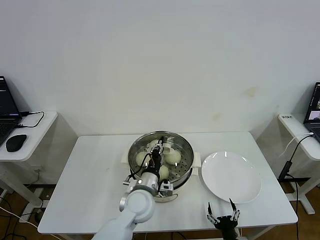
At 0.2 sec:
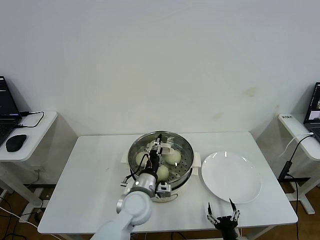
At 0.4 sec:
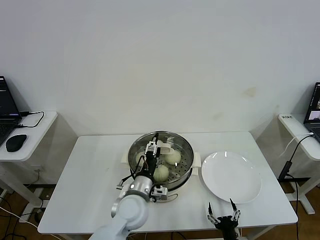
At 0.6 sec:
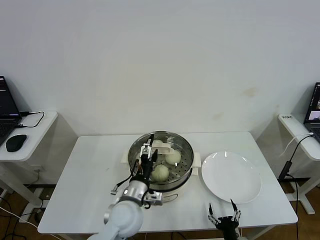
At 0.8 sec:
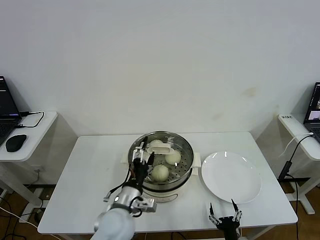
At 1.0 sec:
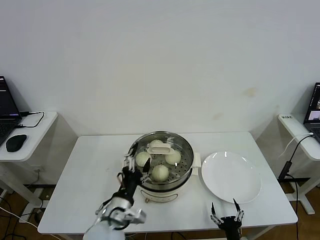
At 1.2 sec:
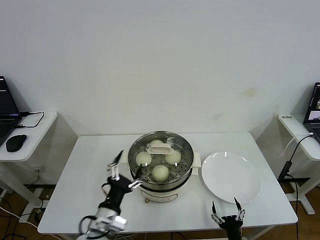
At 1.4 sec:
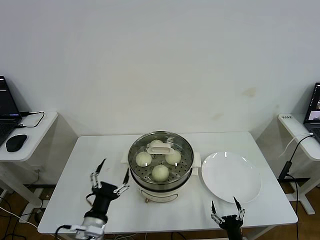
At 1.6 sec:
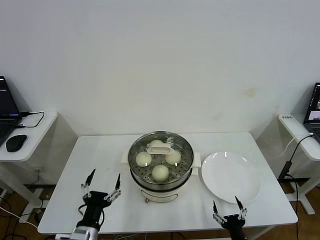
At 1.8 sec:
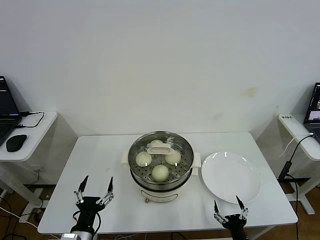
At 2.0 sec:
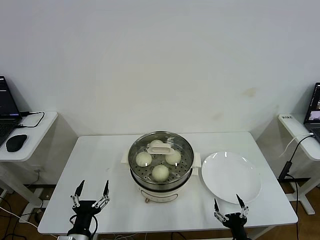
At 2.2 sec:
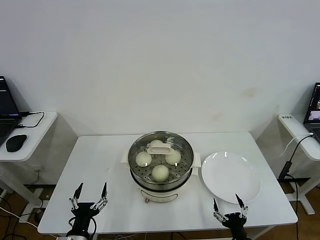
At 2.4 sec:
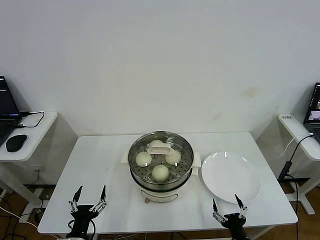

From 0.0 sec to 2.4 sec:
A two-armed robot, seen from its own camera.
From 0.0 sec to 1.2 sec: The left gripper shifts some 15 cm backward and to the left, and opens.
From 1.2 sec to 2.4 sec: The left gripper heads to the left, downward and backward, covering roughly 15 cm.
